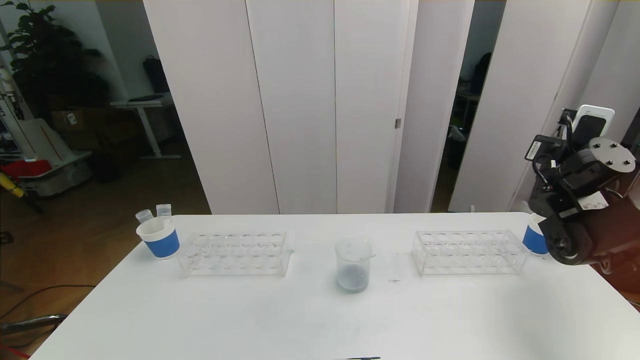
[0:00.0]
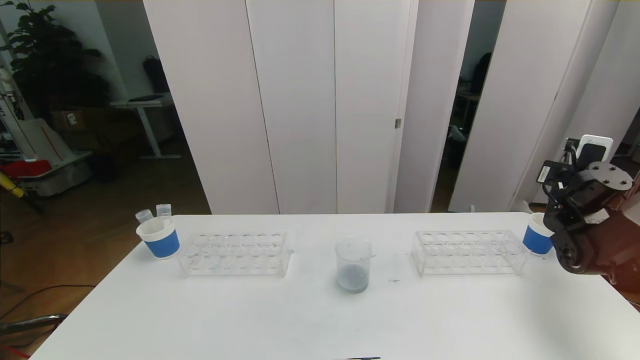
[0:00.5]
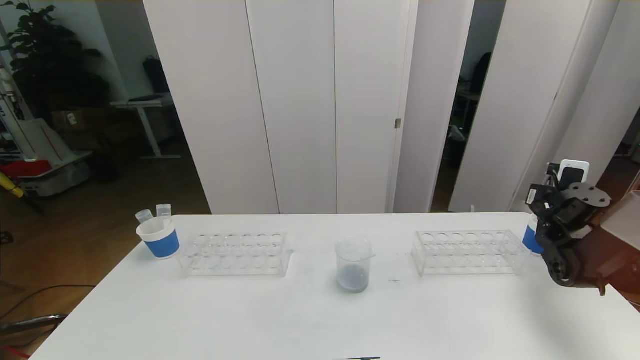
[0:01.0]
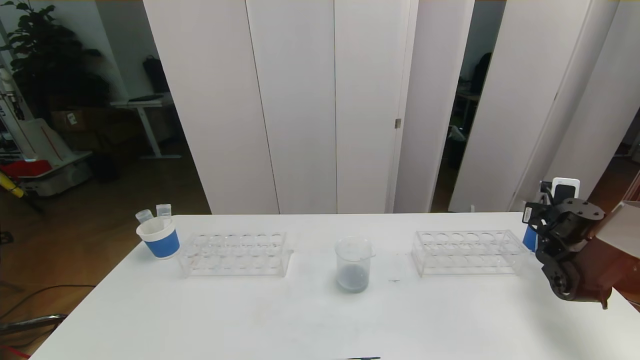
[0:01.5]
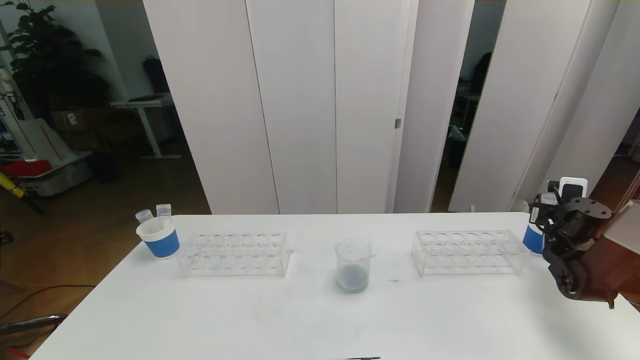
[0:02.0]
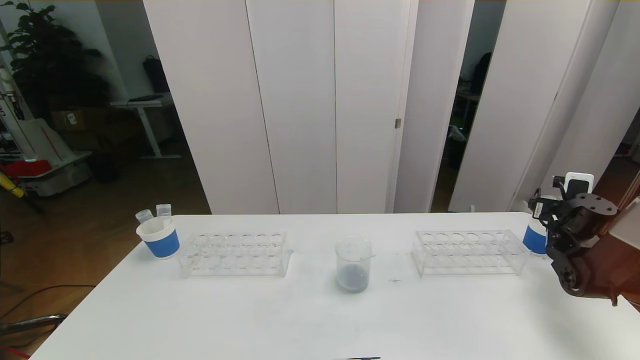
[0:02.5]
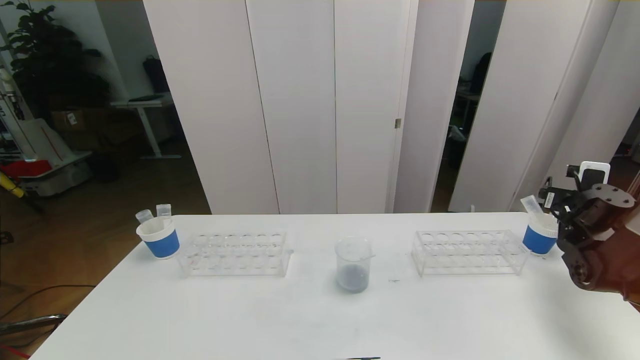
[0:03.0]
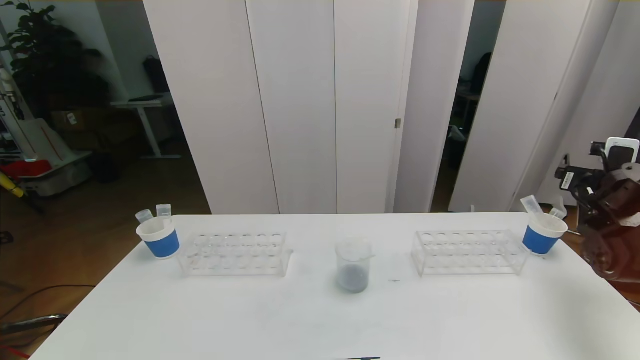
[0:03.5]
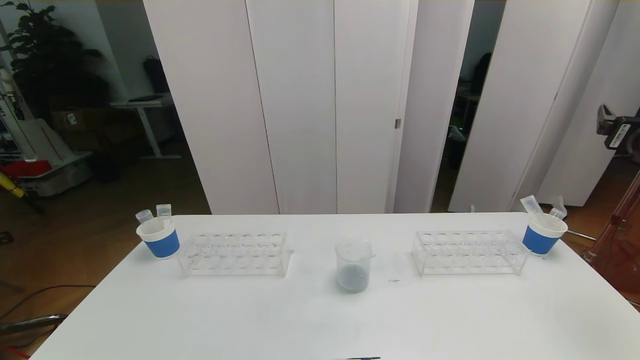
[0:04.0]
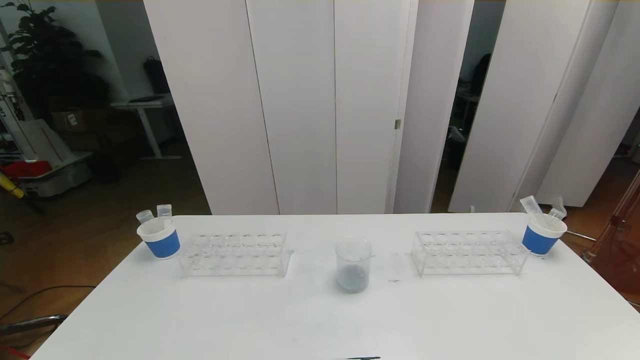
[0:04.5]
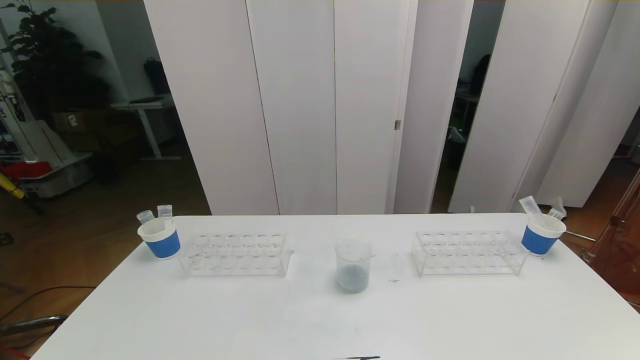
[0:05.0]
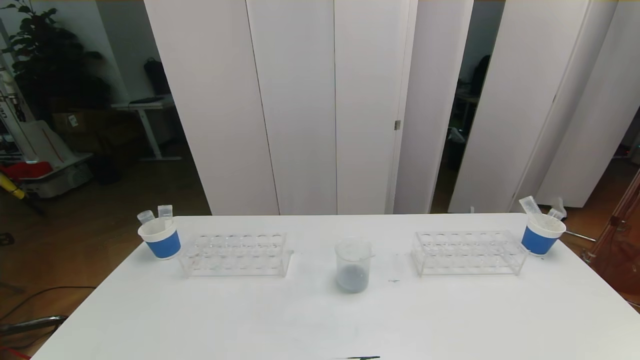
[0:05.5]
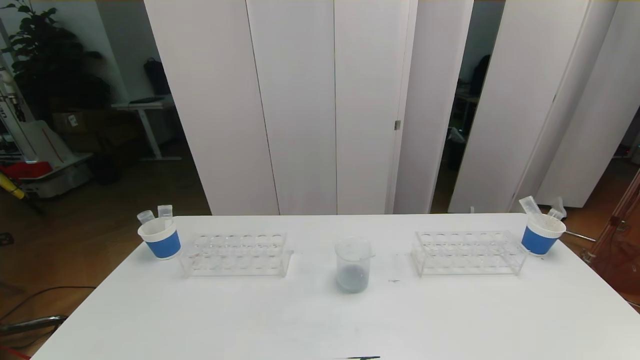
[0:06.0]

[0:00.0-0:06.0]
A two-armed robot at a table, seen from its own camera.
Task of the whole recording: pick up the test tube with red pigment the test tube with blue pigment and the test tube with white pigment by grippers and pour them into the beaker.
0:00.0 to 0:02.0: The right gripper moves downward and to the right, about 15 cm, and opens up.
0:02.0 to 0:04.0: The right gripper goes roughly 25 cm upward and backward.
0:04.0 to 0:06.0: The right gripper shifts approximately 40 cm backward and downward.

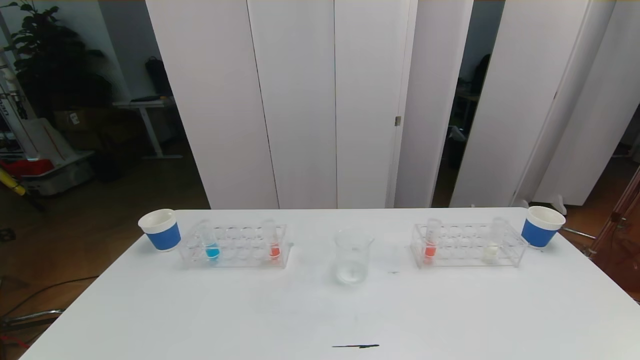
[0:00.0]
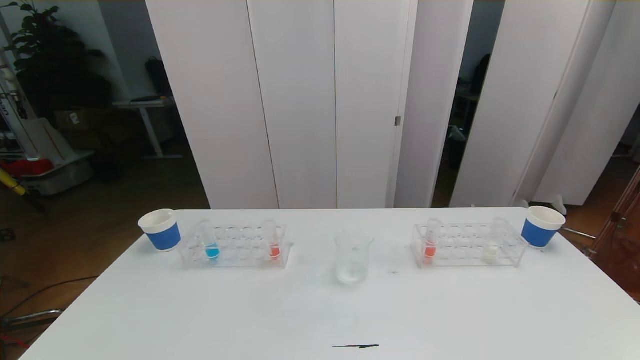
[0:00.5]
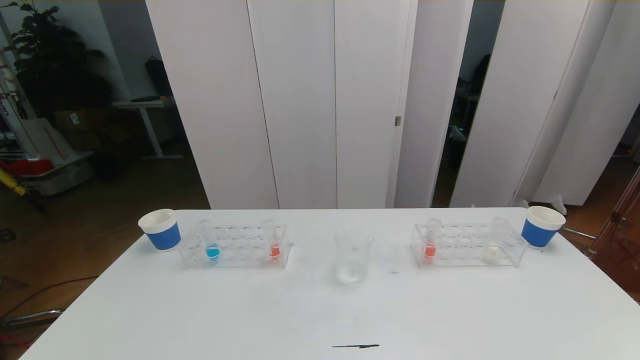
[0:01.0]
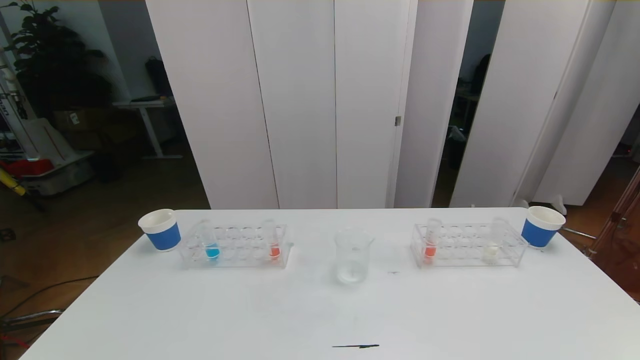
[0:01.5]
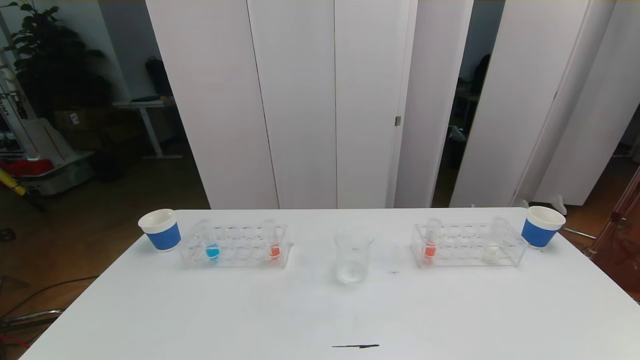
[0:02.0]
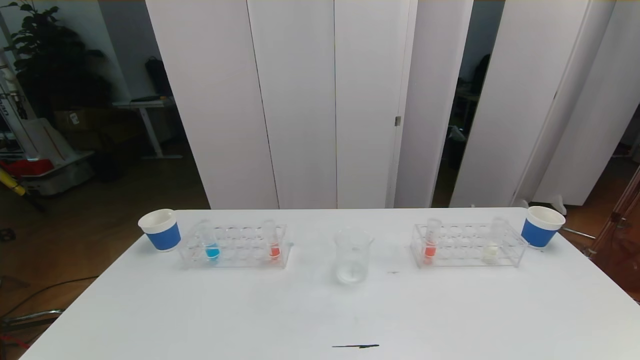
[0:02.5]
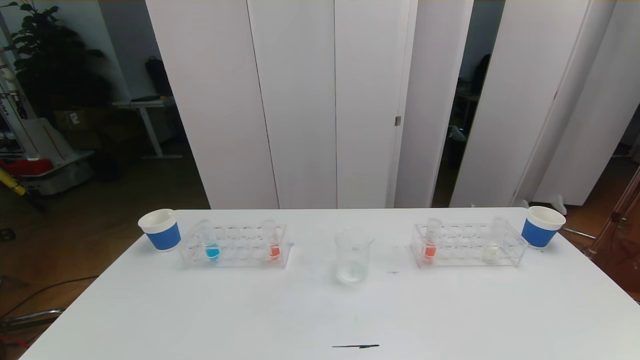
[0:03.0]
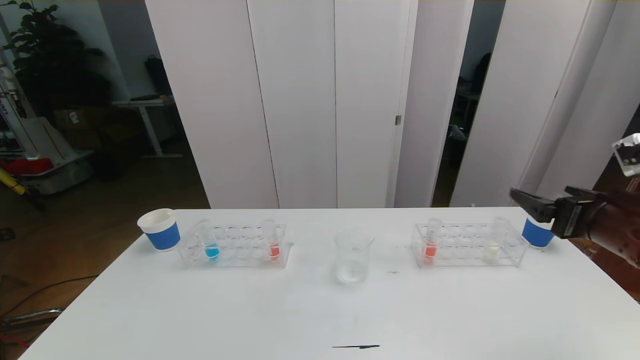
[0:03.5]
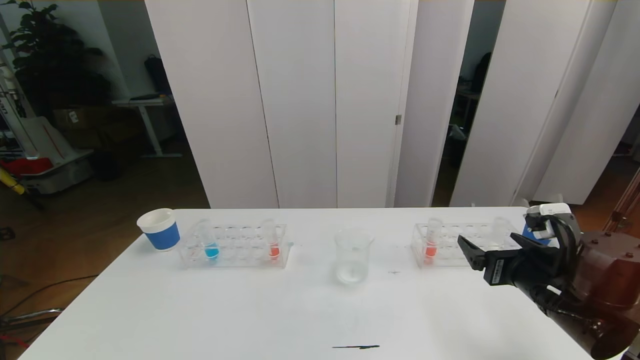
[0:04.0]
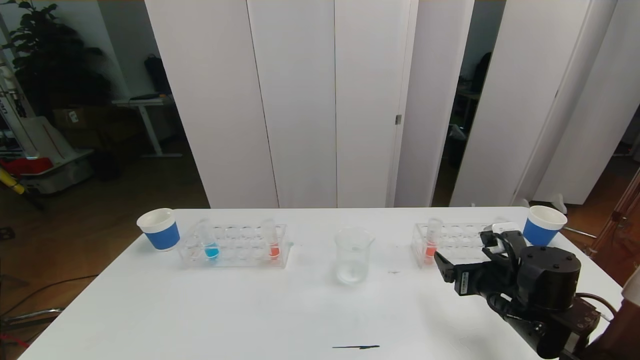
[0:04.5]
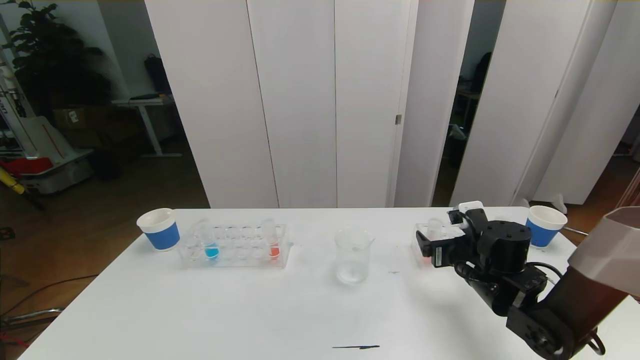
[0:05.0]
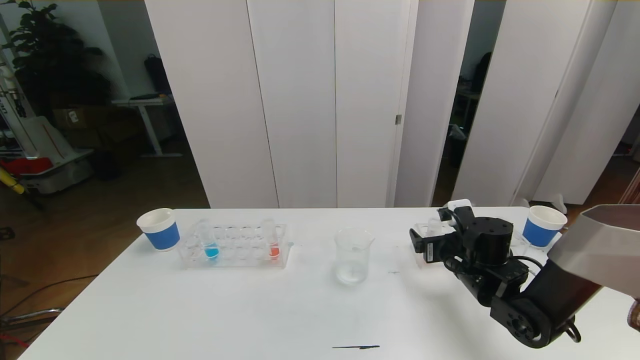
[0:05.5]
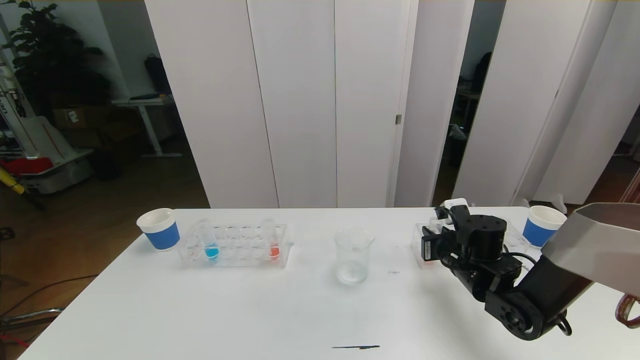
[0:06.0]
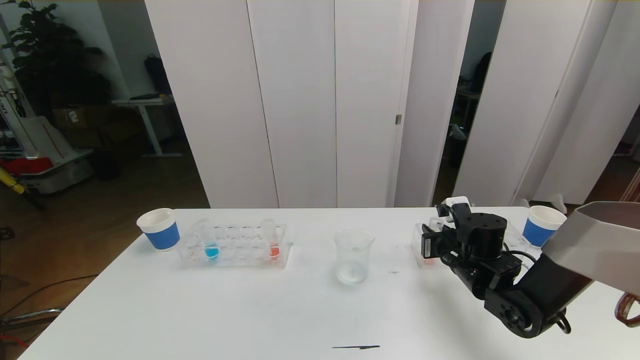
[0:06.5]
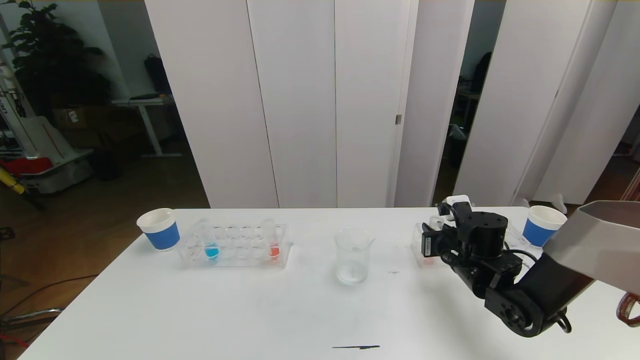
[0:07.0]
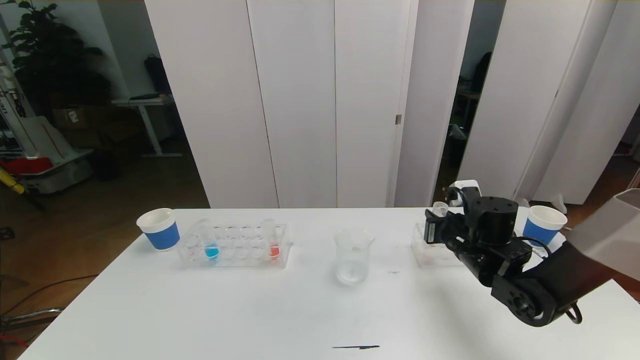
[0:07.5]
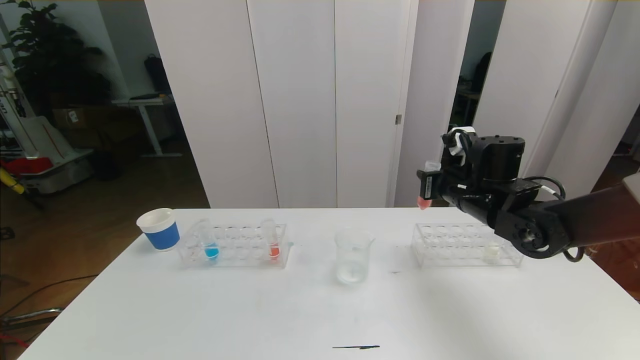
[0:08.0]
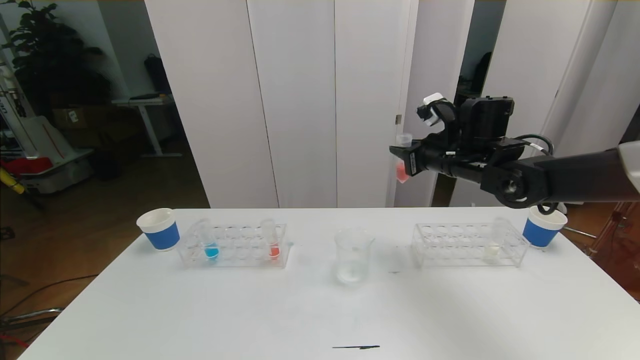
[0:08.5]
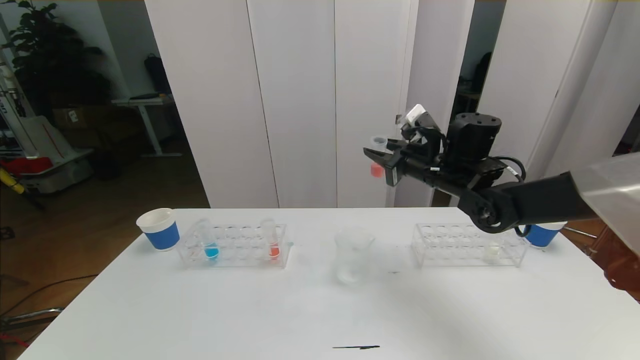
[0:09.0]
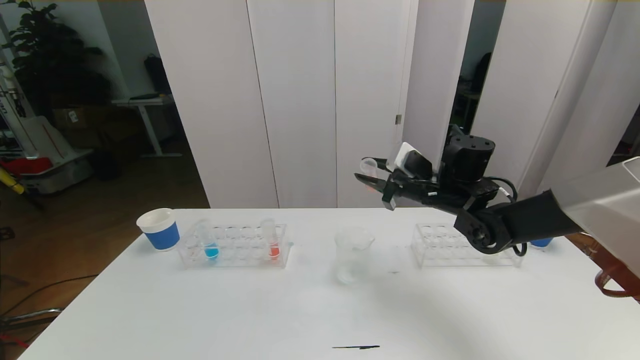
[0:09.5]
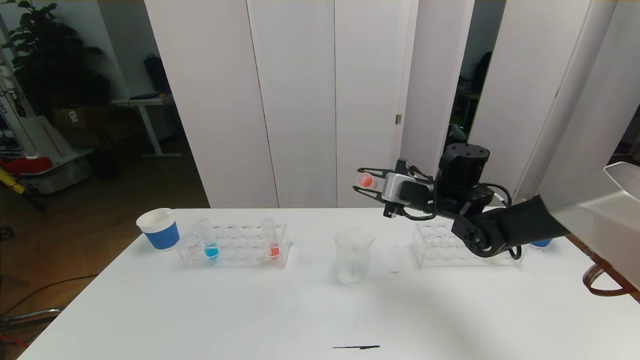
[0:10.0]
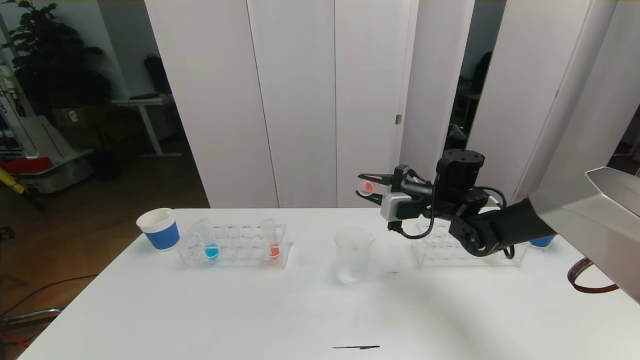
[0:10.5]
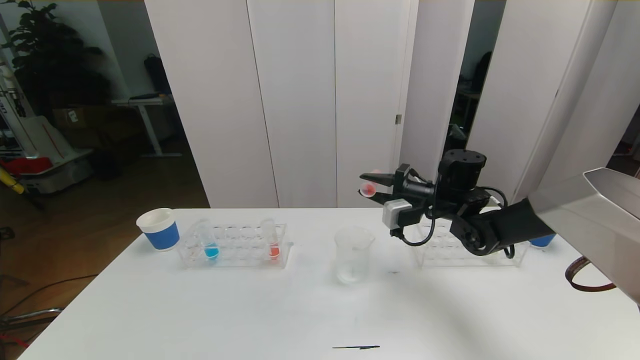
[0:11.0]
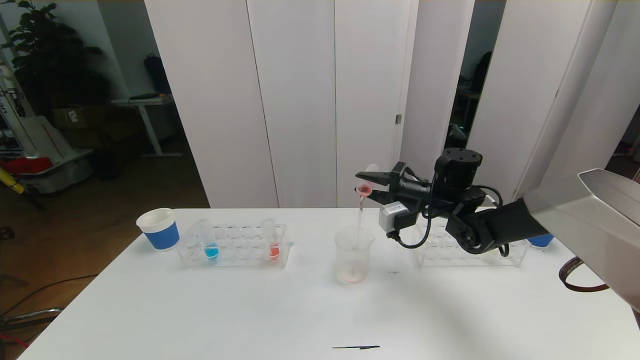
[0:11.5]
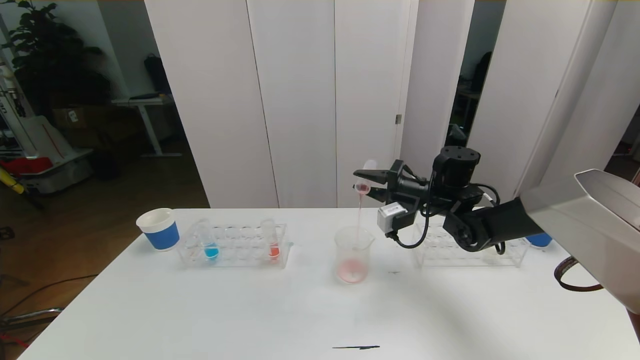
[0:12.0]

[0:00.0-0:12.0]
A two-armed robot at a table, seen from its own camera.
Task of the whole recording: pick up the test tube with red pigment the test tube with blue pigment and the test tube with white pigment by grippers and pour them into the beaker.
0:02.0 to 0:04.0: The right gripper goes some 25 cm forward.
0:04.0 to 0:06.0: The right gripper moves forward and downward, roughly 15 cm, and closes.
0:06.0 to 0:08.0: The right gripper heads upward, covering some 10 cm.
0:08.0 to 0:10.0: The right gripper shifts by approximately 5 cm.

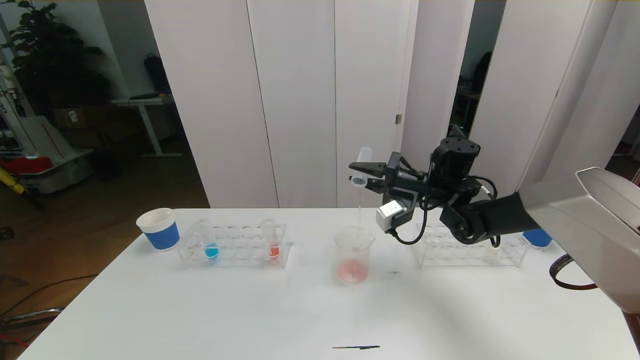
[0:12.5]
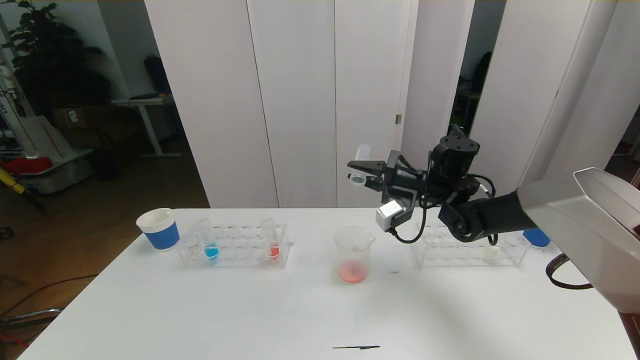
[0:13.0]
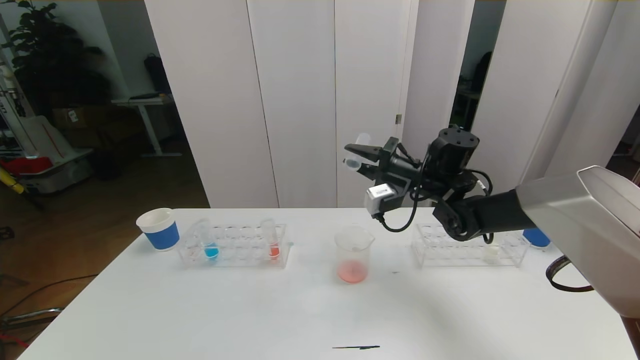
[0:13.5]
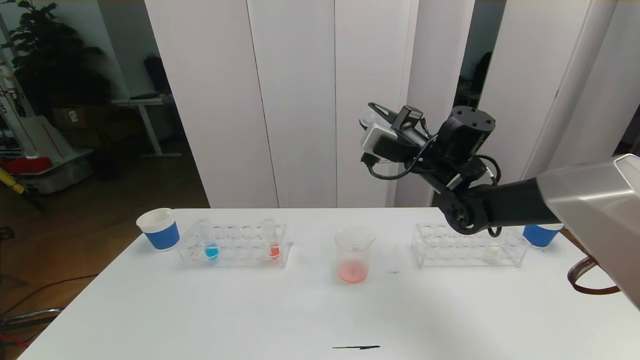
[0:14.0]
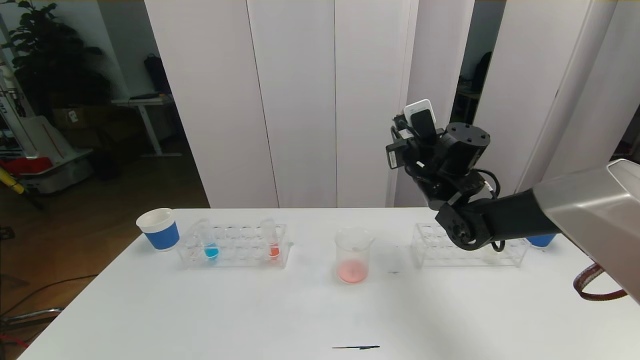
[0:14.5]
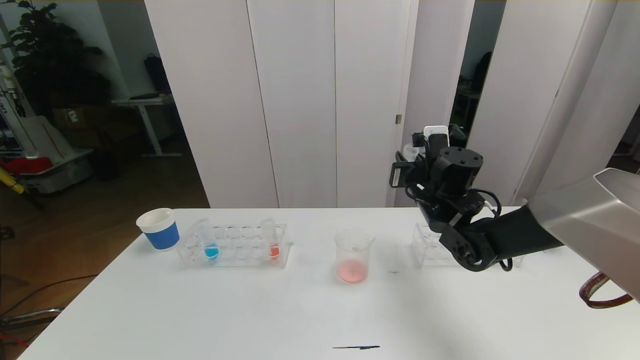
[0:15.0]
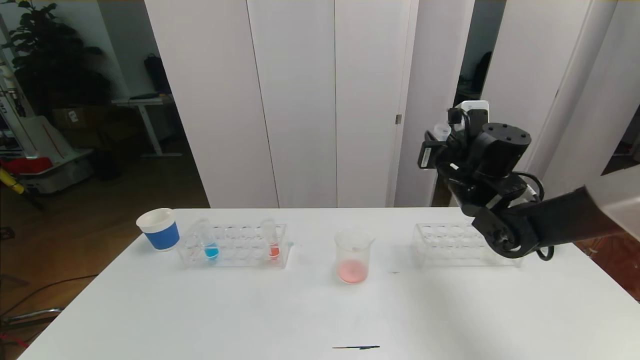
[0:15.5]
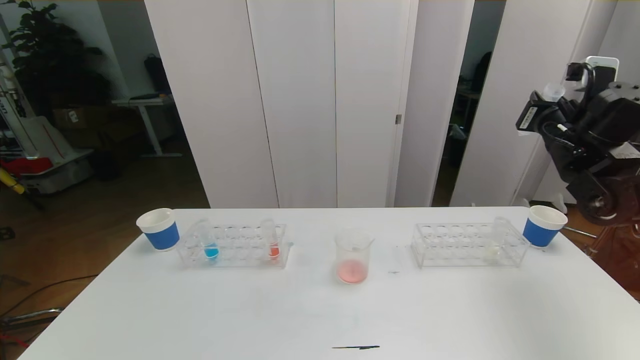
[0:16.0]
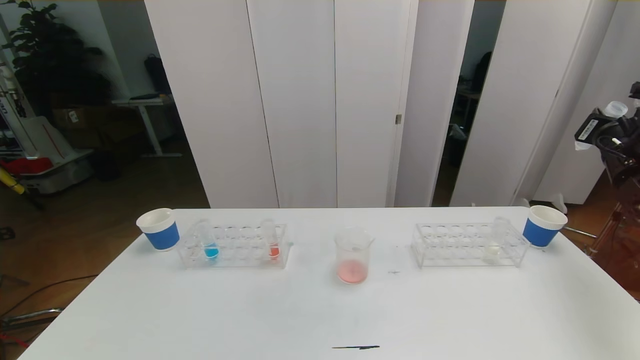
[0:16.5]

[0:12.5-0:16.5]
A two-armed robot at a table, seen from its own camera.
Task of the whole recording: pick up the test tube with red pigment the test tube with blue pigment and the test tube with white pigment by grippers and pour them into the beaker.
0:12.5 to 0:14.5: The right gripper moves some 5 cm.
0:14.5 to 0:16.5: The right gripper travels to the right by some 30 cm.
